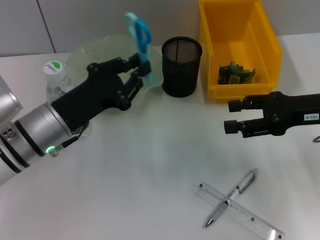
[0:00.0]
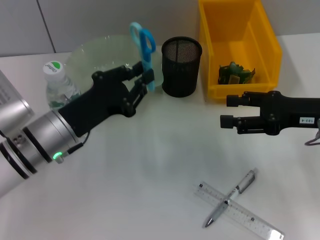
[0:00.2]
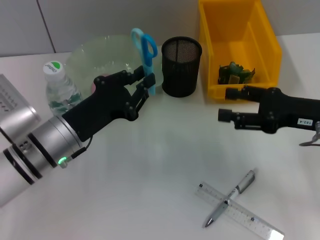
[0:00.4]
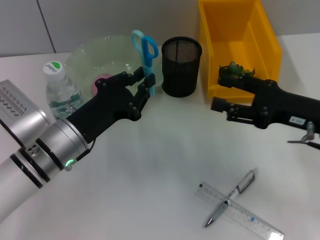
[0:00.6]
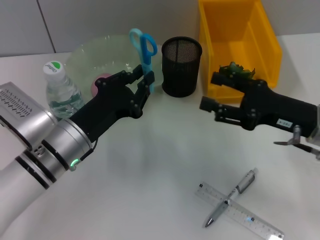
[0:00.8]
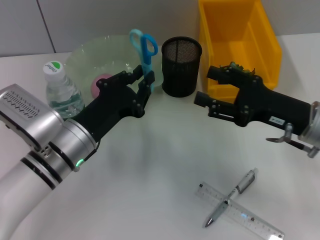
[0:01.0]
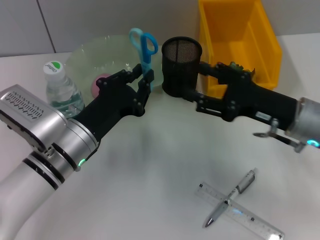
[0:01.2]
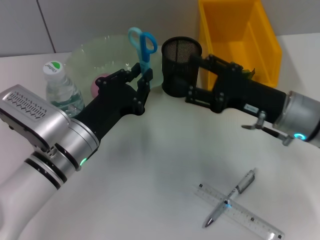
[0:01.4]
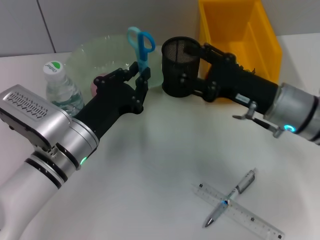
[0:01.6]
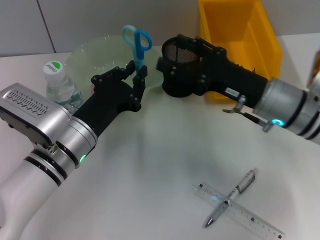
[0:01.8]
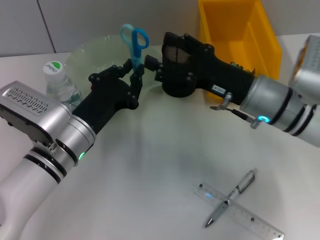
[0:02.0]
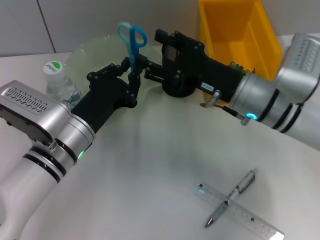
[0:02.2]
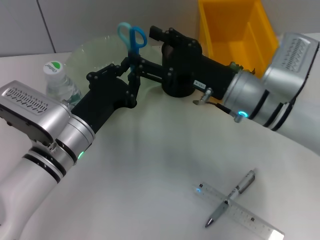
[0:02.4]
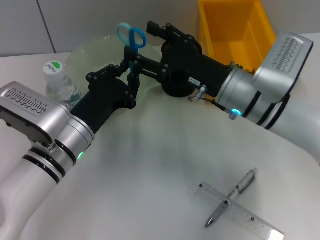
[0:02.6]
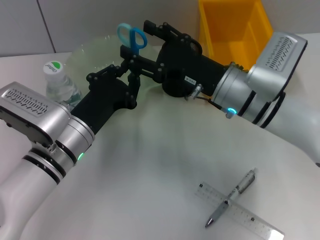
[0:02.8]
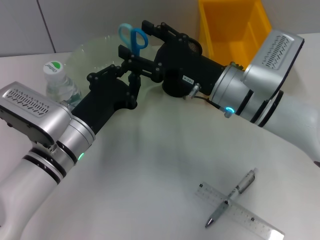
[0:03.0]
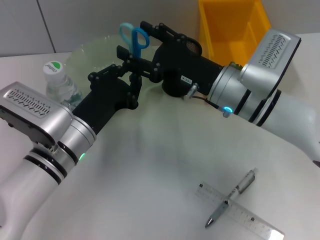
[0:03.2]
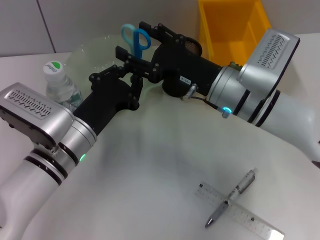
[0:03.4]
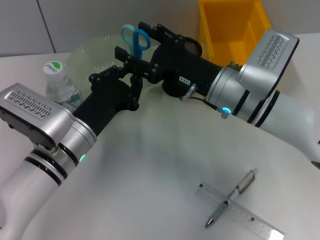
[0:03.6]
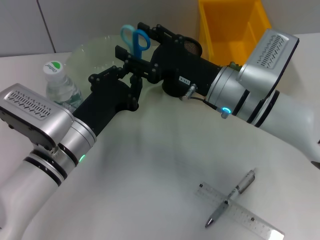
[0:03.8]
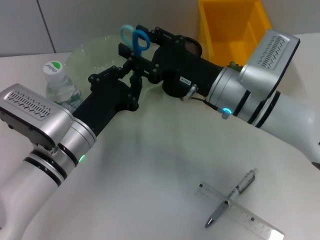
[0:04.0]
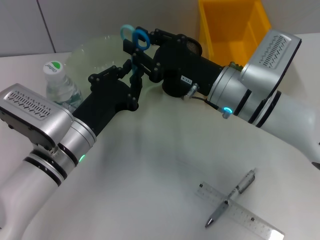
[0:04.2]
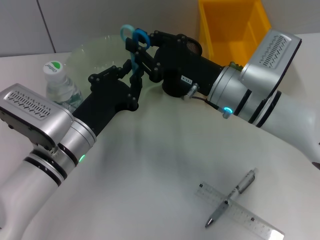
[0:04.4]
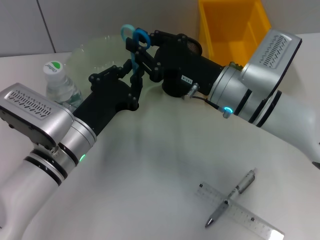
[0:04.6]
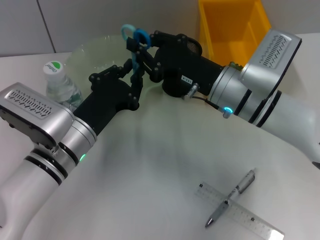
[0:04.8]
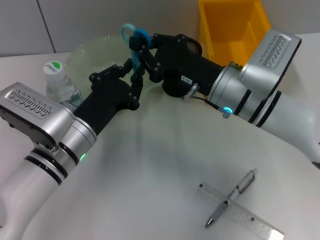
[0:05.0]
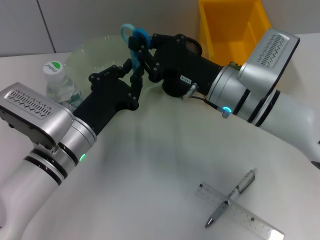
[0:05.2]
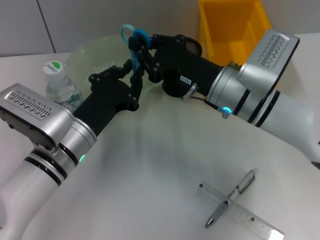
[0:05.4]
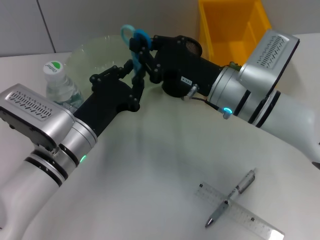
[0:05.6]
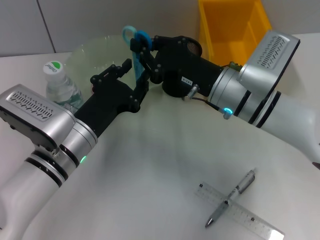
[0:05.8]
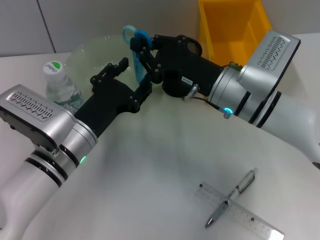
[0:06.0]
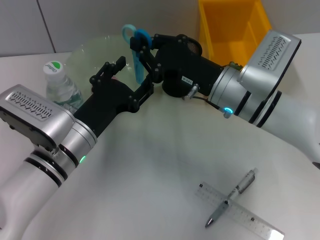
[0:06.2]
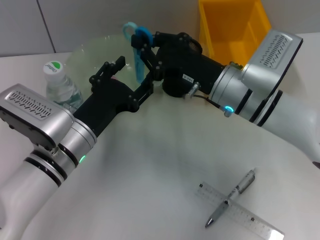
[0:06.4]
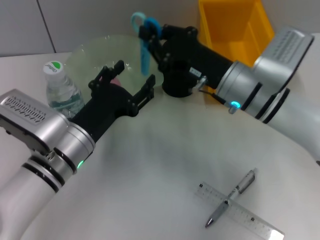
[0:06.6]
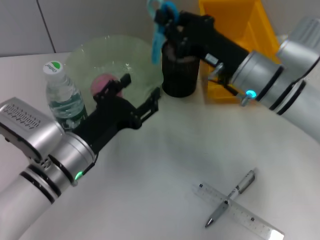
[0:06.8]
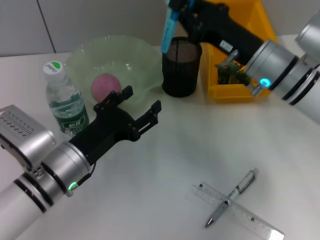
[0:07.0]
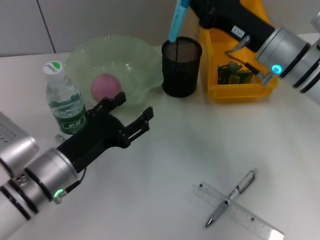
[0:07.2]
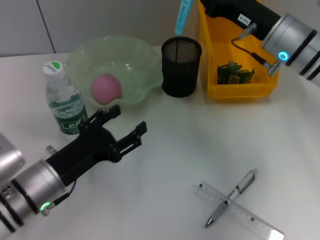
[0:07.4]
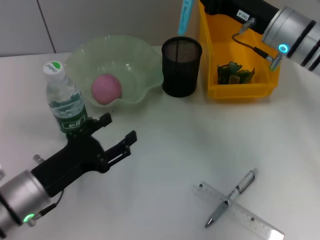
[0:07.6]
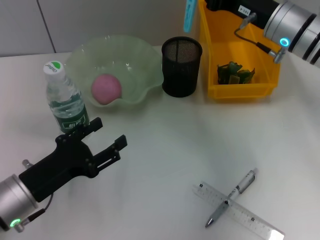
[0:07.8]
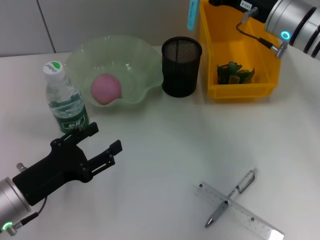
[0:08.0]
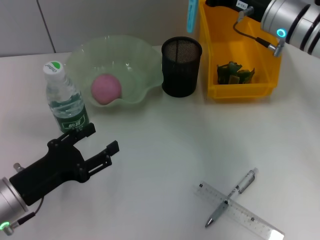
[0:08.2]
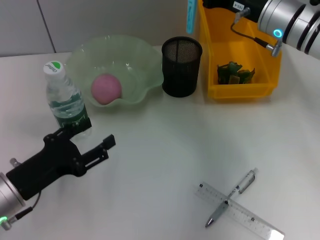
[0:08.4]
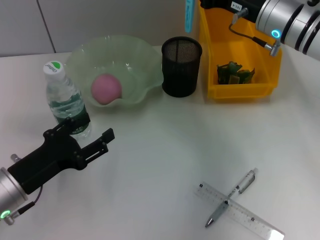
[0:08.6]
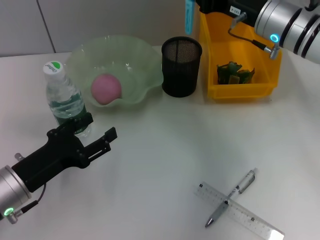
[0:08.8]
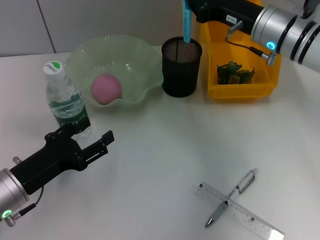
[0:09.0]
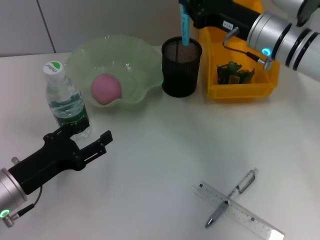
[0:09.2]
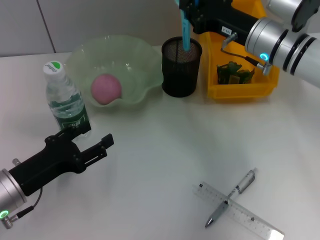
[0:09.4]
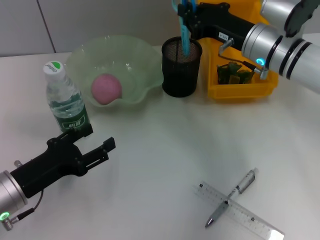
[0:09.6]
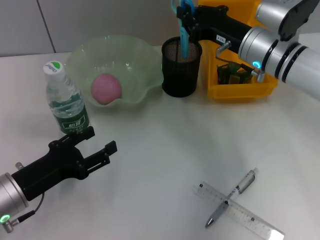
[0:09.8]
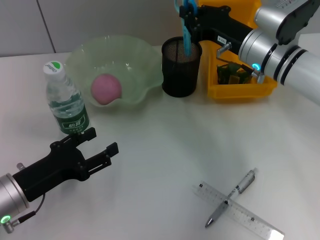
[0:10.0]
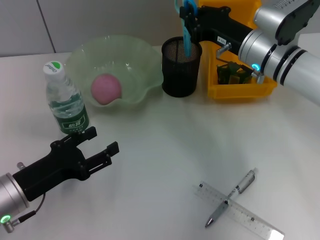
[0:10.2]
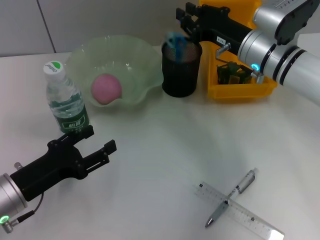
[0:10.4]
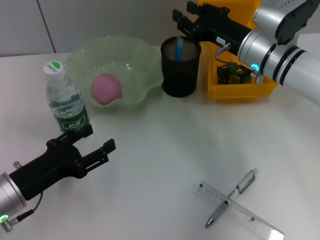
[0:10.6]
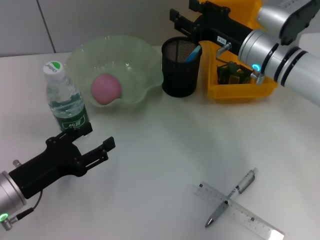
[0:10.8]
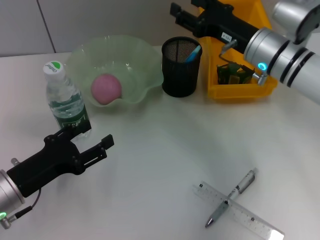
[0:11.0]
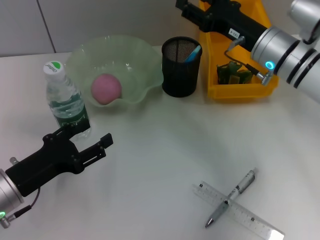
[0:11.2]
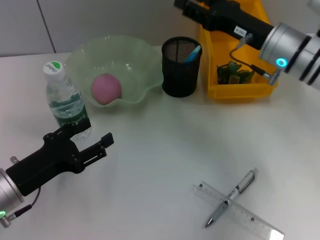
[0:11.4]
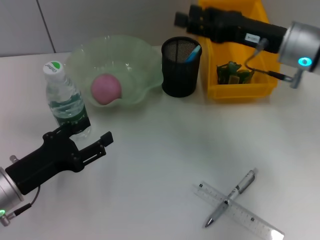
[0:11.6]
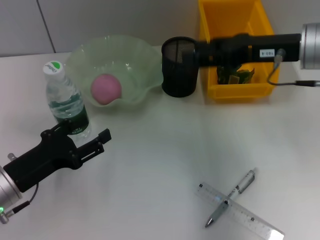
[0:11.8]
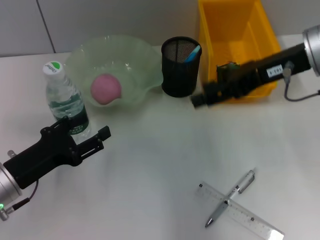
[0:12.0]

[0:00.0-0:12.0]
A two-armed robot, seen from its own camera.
Step, 0:00.0 to 0:06.2: Pass the blue scissors from the left hand to the right hand.
Step, 0:06.4 to 0:10.6: Place the blue scissors into the pen holder with the right hand.
0:00.0 to 0:01.6: The right gripper goes about 10 cm to the left.
0:01.6 to 0:03.0: The right gripper heads to the left, covering some 5 cm.
0:03.0 to 0:04.4: The right gripper closes up.
0:04.4 to 0:06.0: The two grippers keep their place.
0:06.0 to 0:07.6: The right gripper moves to the right and upward, about 10 cm. Meanwhile the left gripper is displaced to the left and backward by approximately 10 cm, and opens up.
0:07.6 to 0:10.4: The grippers move only a little.
0:10.4 to 0:12.0: The right gripper heads upward and backward, covering some 15 cm, and opens.

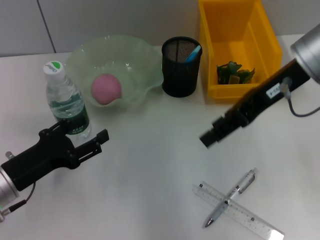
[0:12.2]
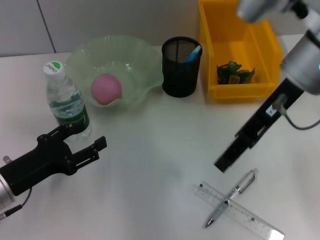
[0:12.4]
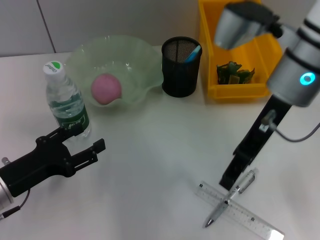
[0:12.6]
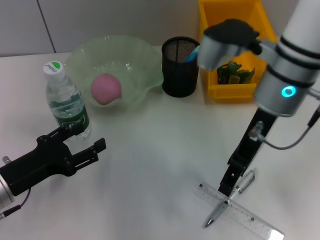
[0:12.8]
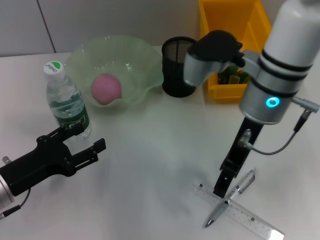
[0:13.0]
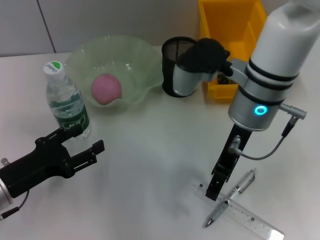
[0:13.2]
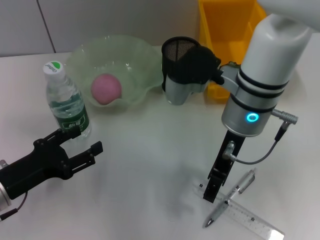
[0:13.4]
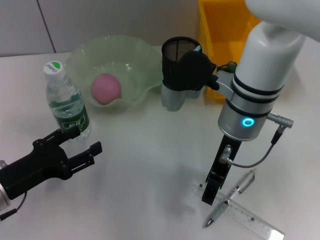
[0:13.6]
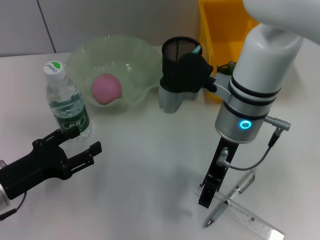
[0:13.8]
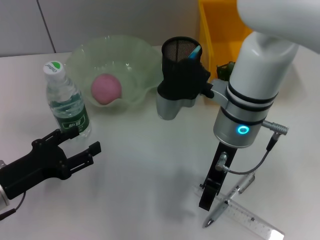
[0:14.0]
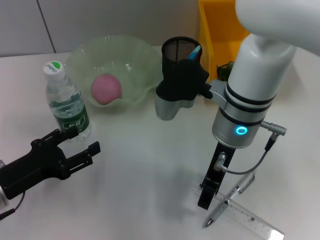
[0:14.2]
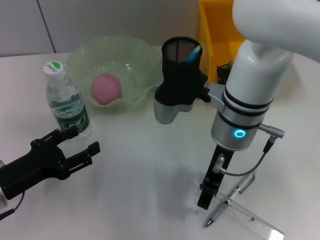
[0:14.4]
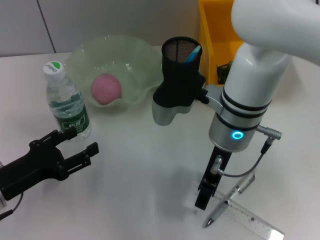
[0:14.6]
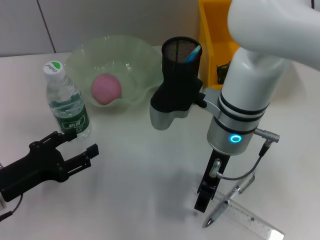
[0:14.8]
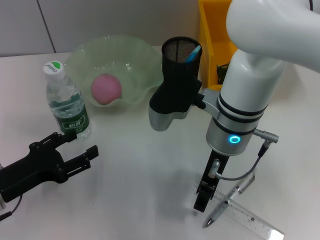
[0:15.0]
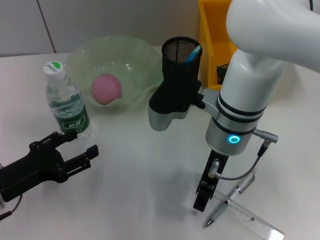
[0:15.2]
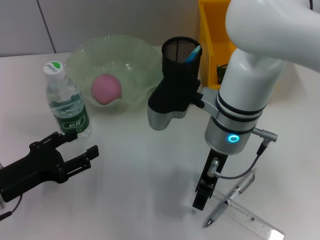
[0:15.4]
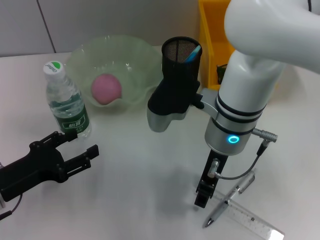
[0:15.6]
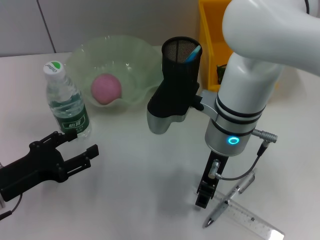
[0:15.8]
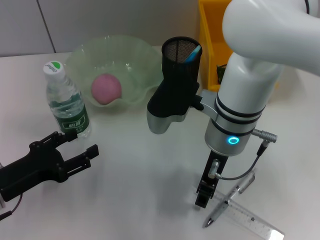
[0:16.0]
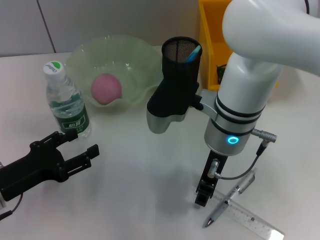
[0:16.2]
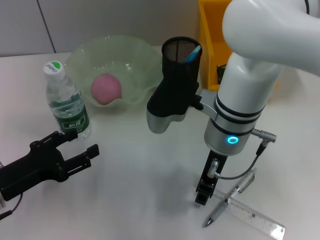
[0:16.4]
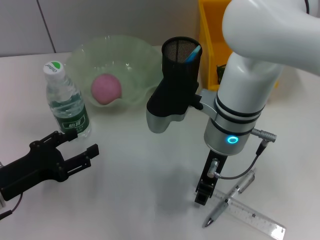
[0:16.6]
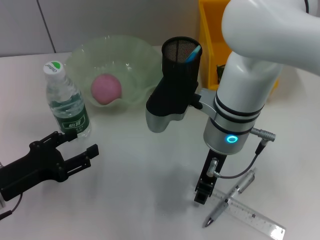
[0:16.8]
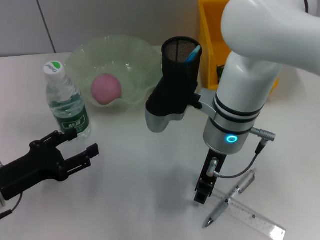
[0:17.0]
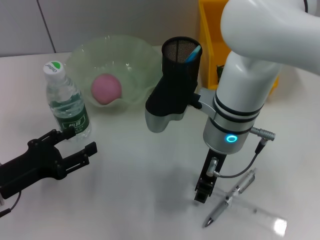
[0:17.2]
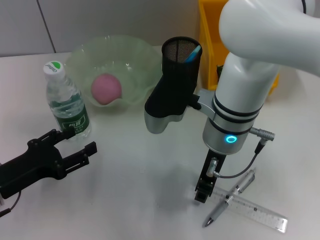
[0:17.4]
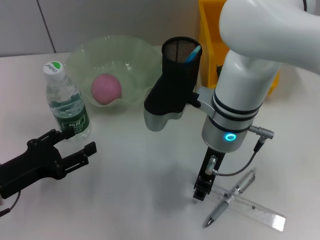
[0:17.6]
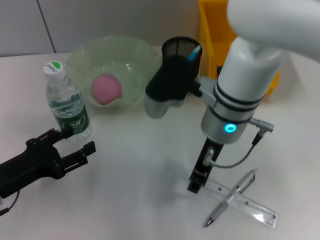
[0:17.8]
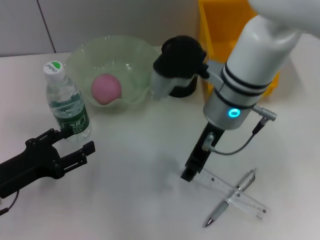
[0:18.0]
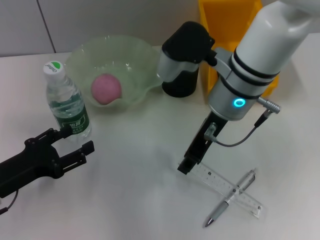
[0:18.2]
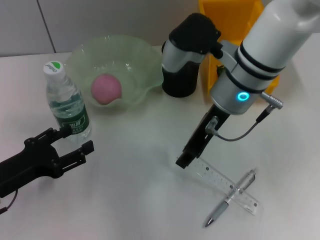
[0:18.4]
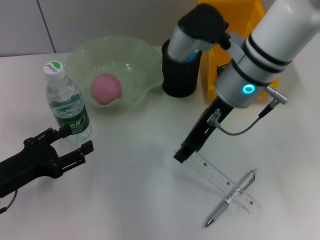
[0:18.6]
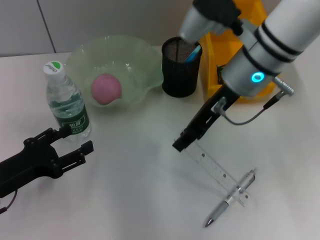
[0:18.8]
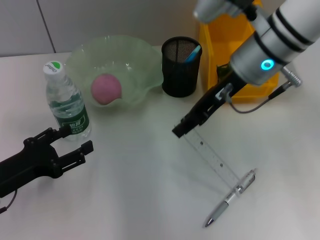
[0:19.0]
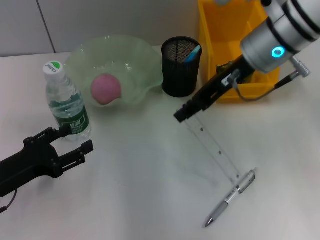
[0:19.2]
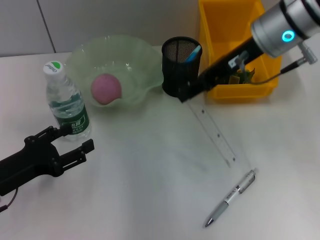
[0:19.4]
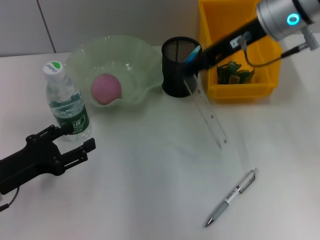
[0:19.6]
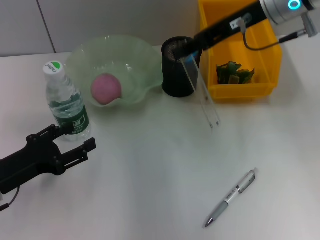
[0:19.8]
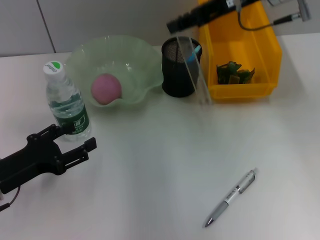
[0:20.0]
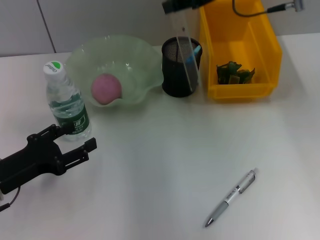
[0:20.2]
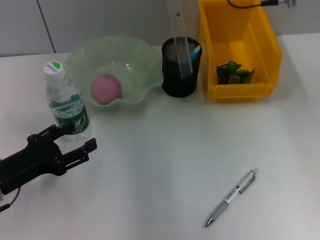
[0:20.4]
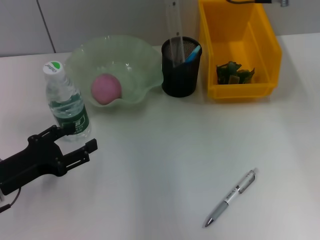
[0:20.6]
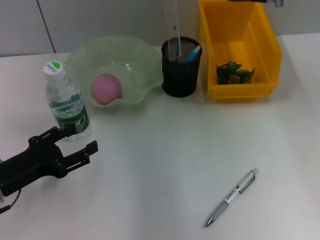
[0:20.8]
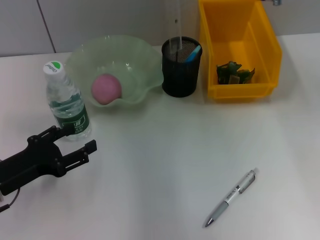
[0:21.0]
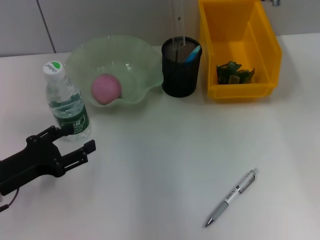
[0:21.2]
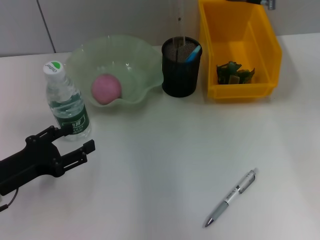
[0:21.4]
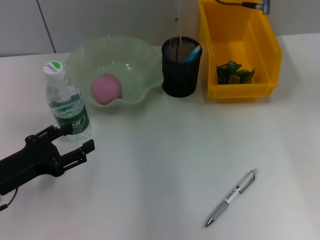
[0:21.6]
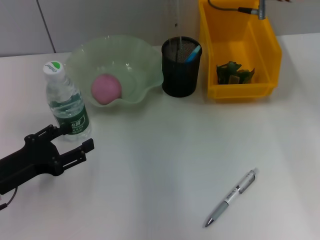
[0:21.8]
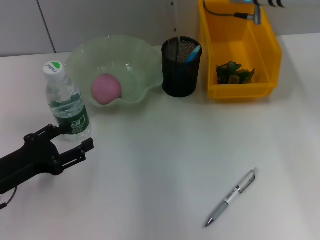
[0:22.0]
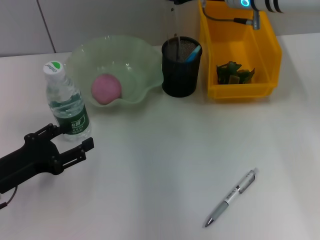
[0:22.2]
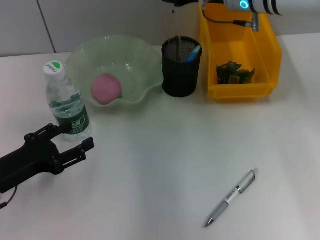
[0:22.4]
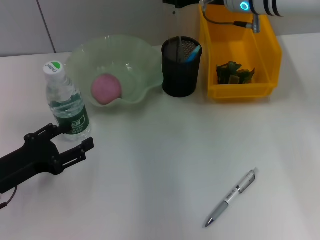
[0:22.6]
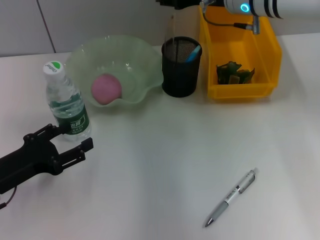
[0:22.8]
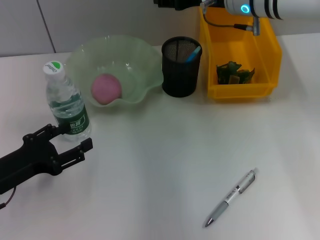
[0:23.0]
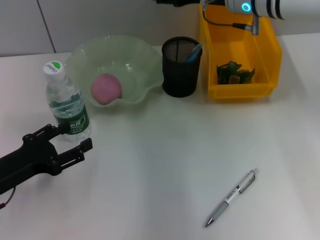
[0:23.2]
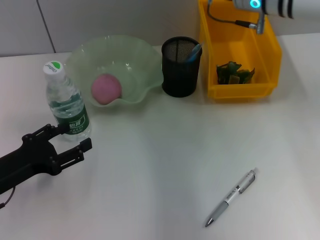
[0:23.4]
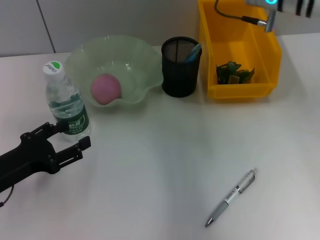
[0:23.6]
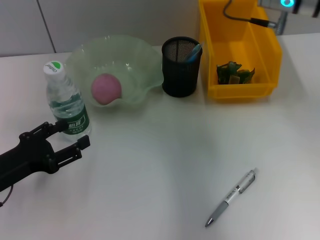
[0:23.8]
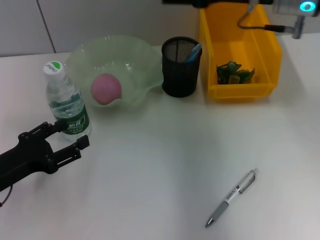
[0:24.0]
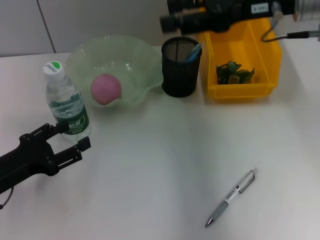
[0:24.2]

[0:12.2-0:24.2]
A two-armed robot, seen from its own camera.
Step, 0:12.2 to 0:16.6: Grab the ruler with the right hand.
Step, 0:16.8 to 0:23.0: Place the ruler into the pen holder with the right hand.
0:12.2 to 0:13.8: The right gripper travels to the left and downward by roughly 15 cm.
0:13.8 to 0:15.2: The grippers make only small movements.
0:15.2 to 0:16.6: Both grippers stay about where they are.
0:18.2 to 0:19.8: The right gripper travels to the right, upward and forward by approximately 15 cm.
0:21.2 to 0:22.6: The right gripper is displaced downward by approximately 5 cm.
0:22.6 to 0:24.2: The right gripper goes some 10 cm backward, upward and to the right, and opens up.
